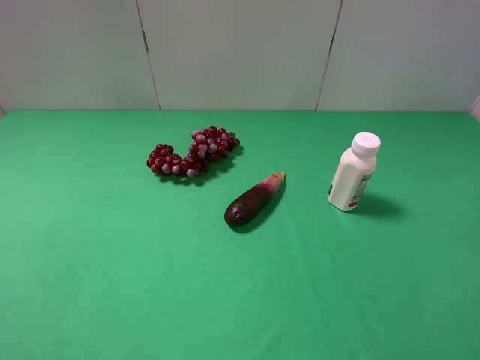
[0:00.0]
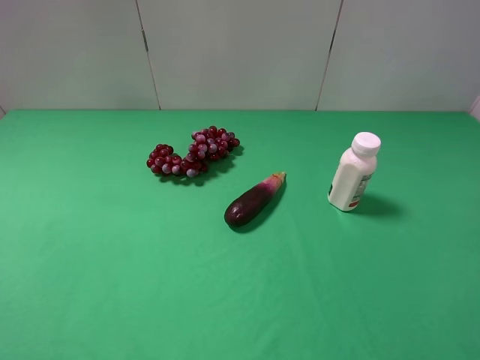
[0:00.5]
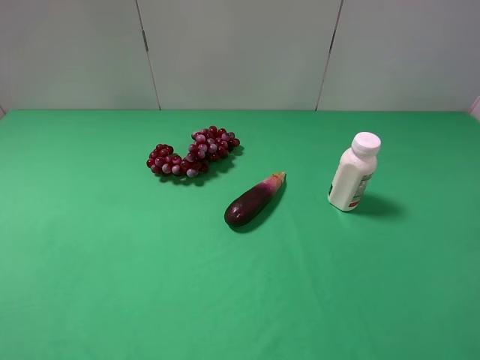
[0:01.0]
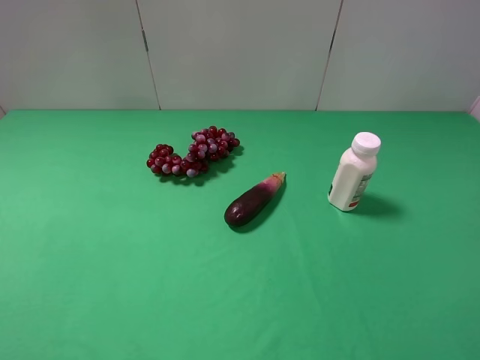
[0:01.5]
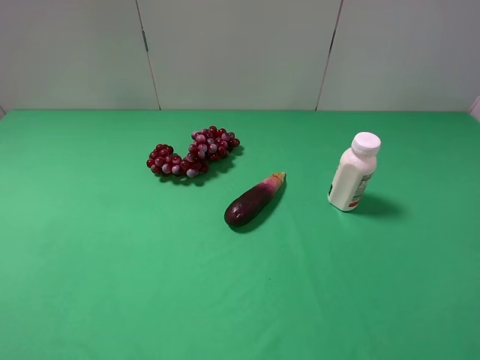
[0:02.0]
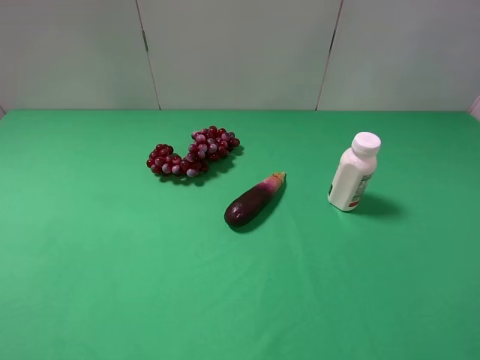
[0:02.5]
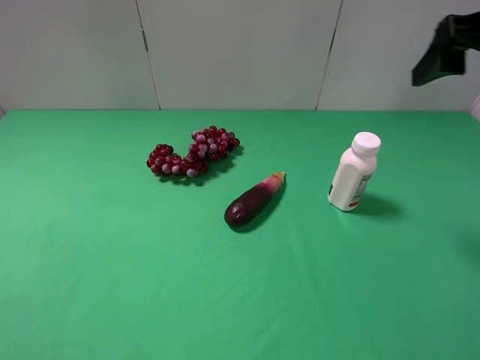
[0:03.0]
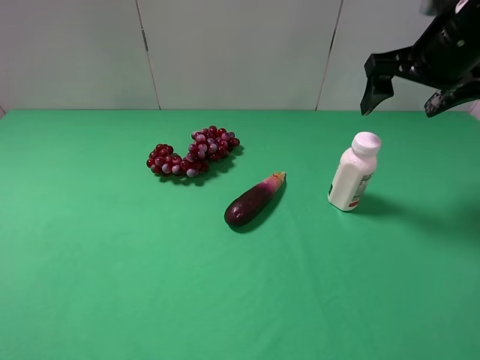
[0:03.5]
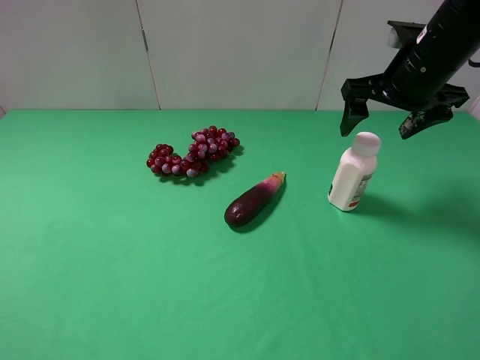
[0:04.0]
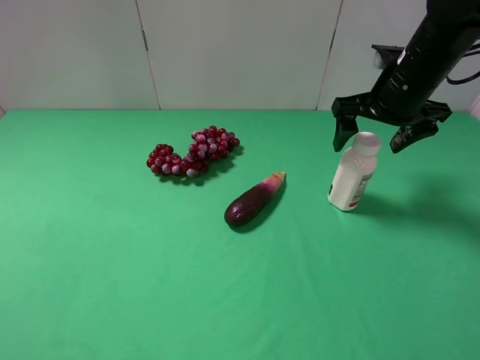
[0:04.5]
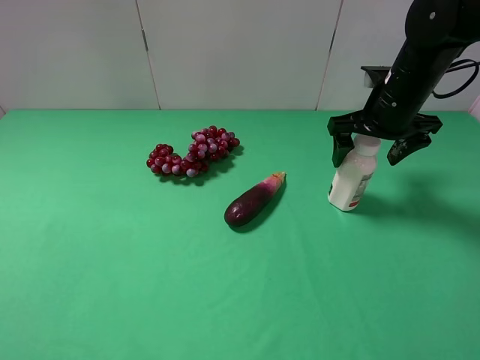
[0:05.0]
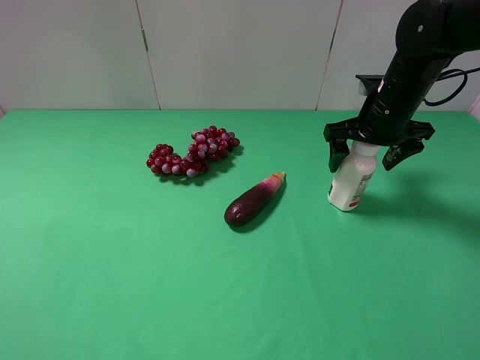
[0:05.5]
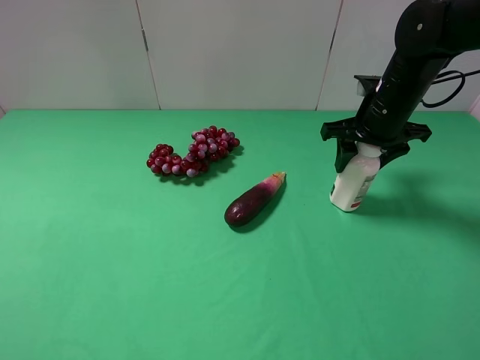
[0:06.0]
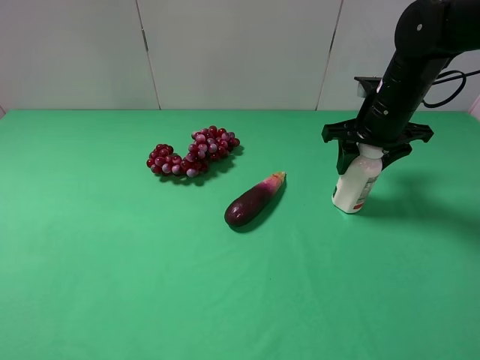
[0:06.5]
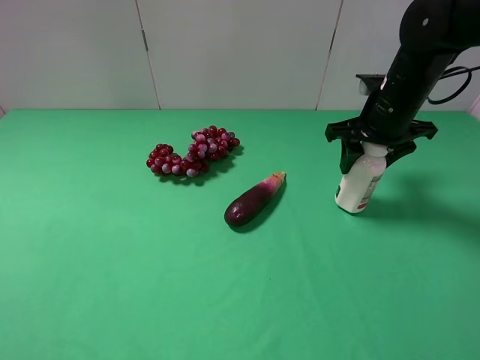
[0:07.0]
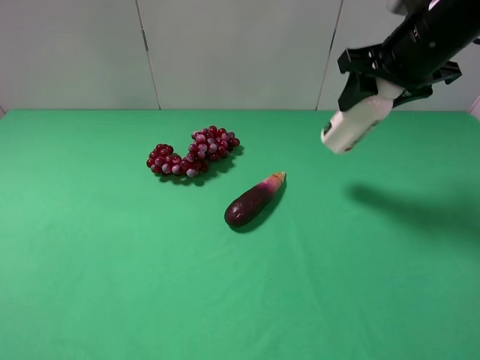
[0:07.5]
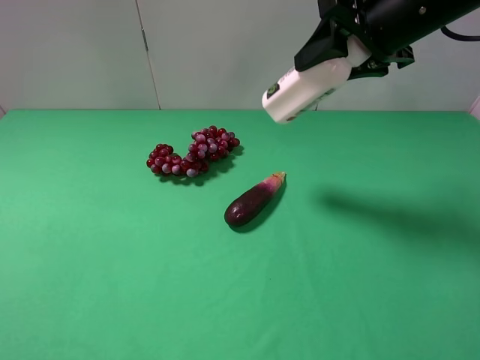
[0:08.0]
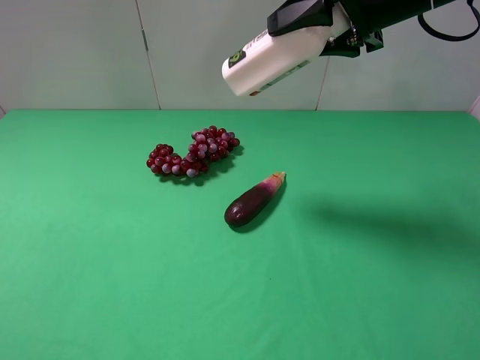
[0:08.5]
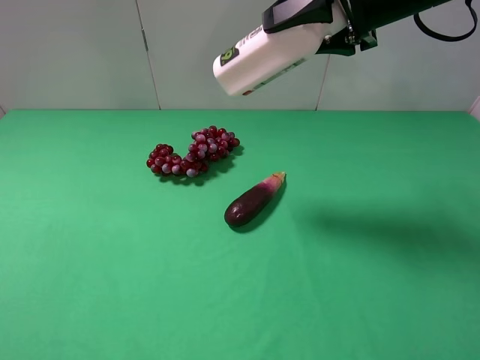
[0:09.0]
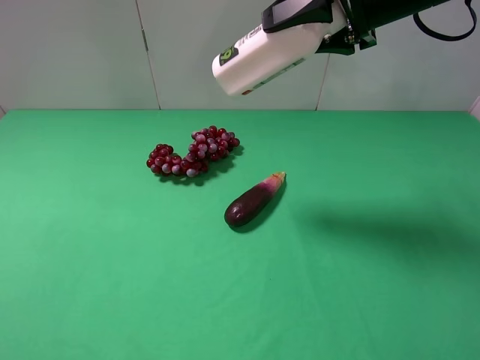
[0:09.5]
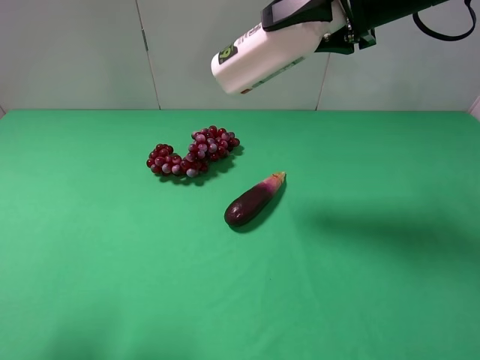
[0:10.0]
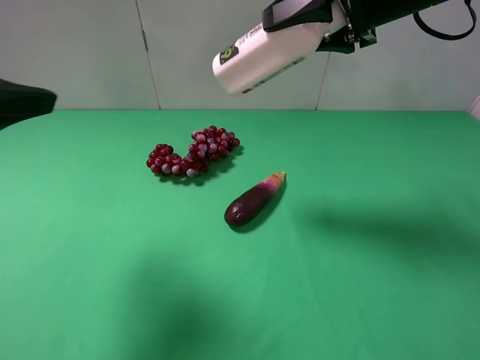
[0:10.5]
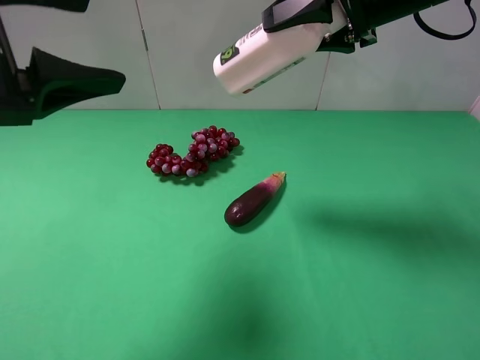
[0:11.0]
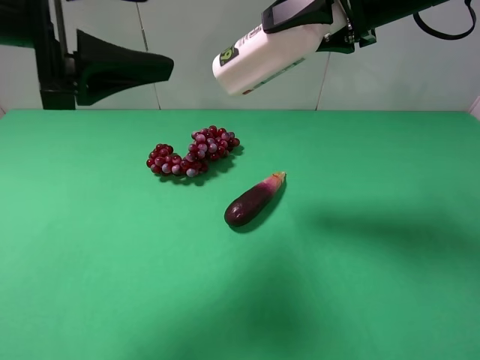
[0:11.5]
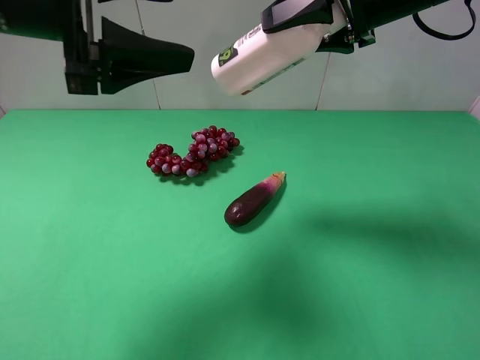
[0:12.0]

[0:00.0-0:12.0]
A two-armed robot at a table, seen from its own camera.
Task of the whole recording: use the right gripper to pick up the item and transfer it from the right gripper to the left gripper.
Step, 0:00.0 to 0:06.0: Use the right gripper to grab the milk on the right side of the table.
0:00.0 to 0:02.0: Both grippers stay about where they are.
0:02.0 to 0:04.0: The right gripper heads forward, covering roughly 30 cm.
0:04.0 to 0:06.0: The right gripper goes roughly 5 cm downward, and closes.
0:06.0 to 0:08.0: The right gripper shifts approximately 15 cm upward.
0:08.0 to 0:10.0: The left gripper travels forward by some 10 cm.
0:10.0 to 0:12.0: The left gripper heads forward and to the right, covering approximately 20 cm.

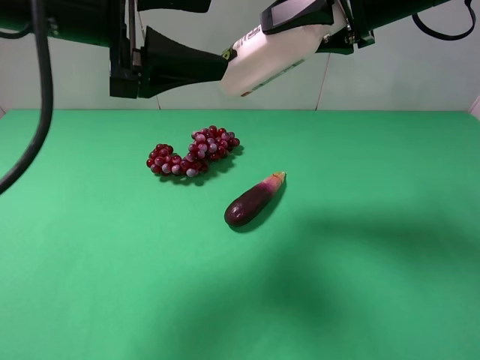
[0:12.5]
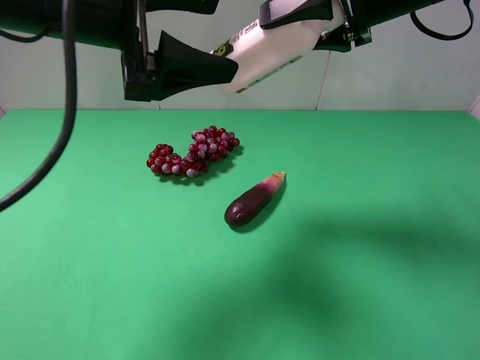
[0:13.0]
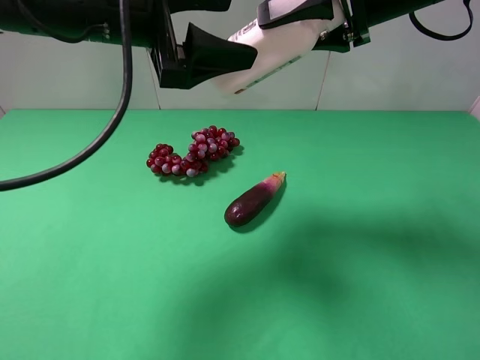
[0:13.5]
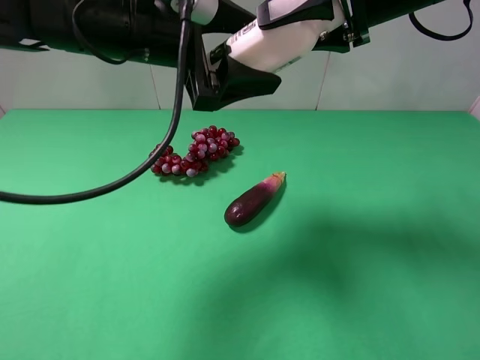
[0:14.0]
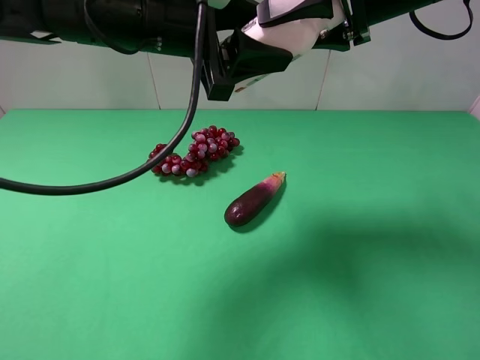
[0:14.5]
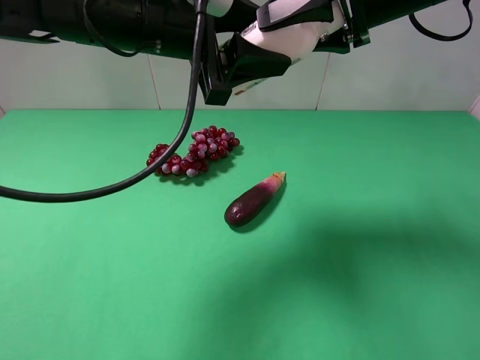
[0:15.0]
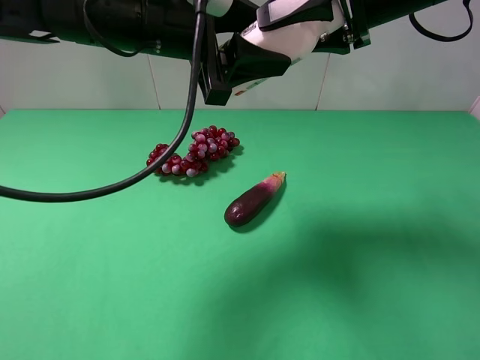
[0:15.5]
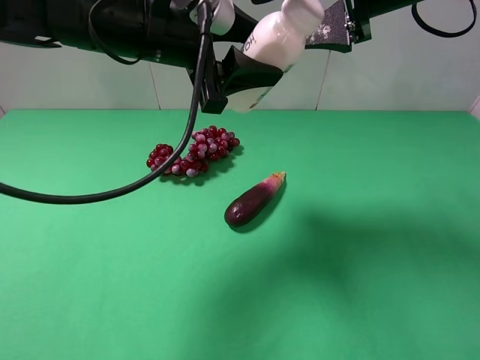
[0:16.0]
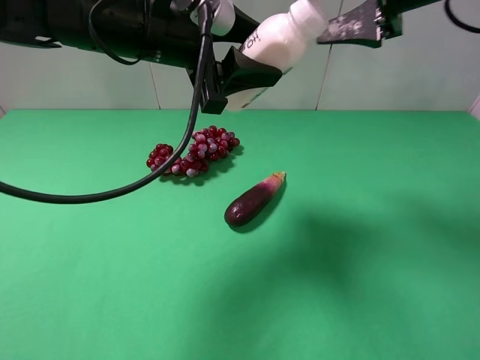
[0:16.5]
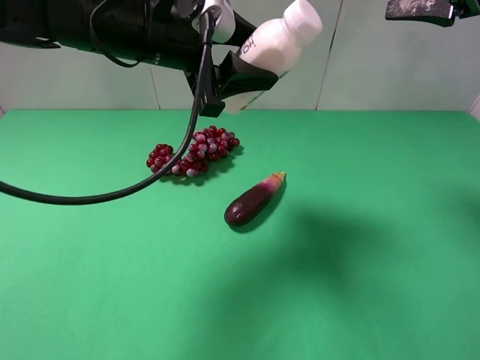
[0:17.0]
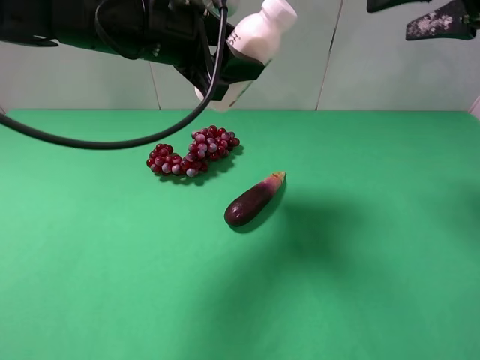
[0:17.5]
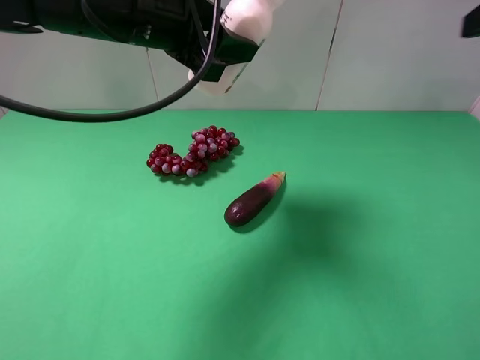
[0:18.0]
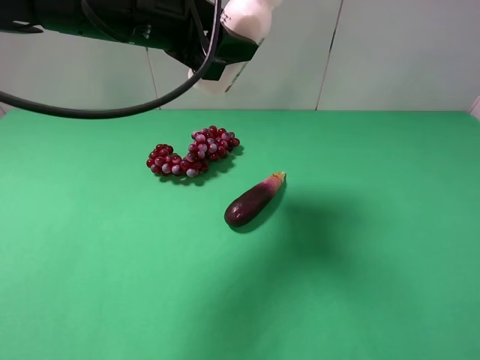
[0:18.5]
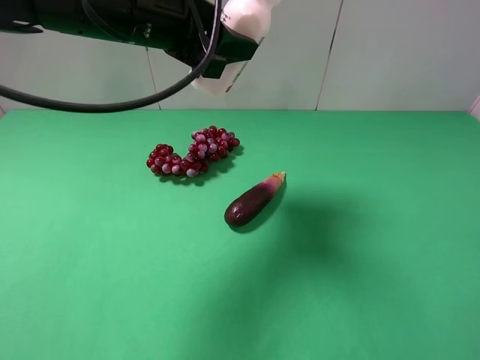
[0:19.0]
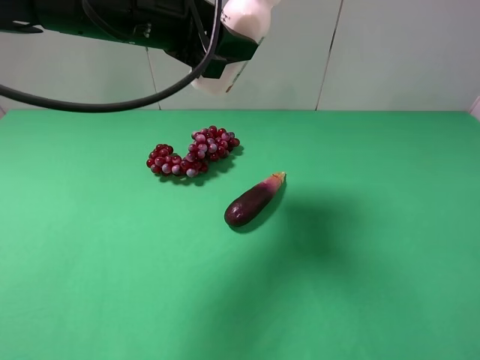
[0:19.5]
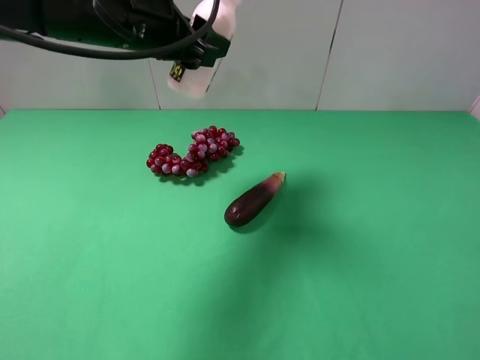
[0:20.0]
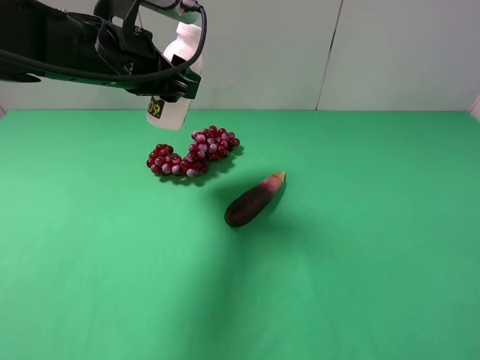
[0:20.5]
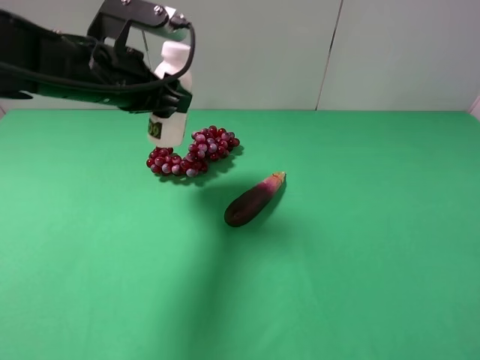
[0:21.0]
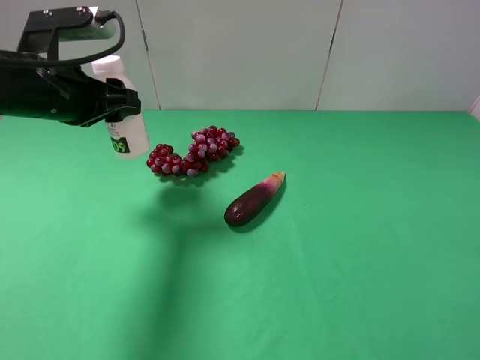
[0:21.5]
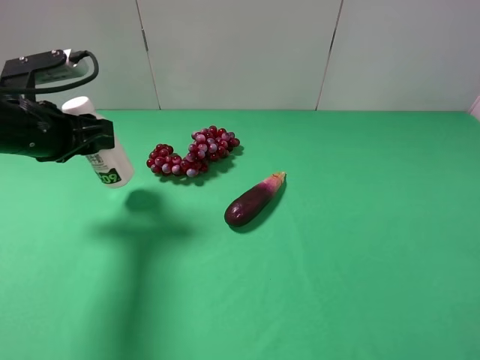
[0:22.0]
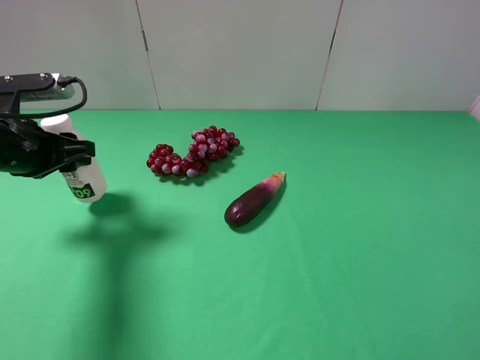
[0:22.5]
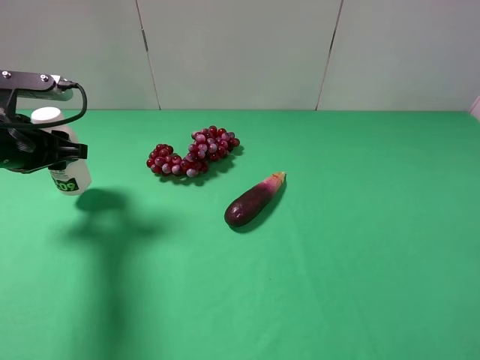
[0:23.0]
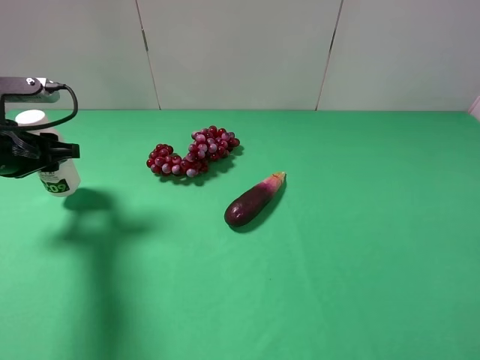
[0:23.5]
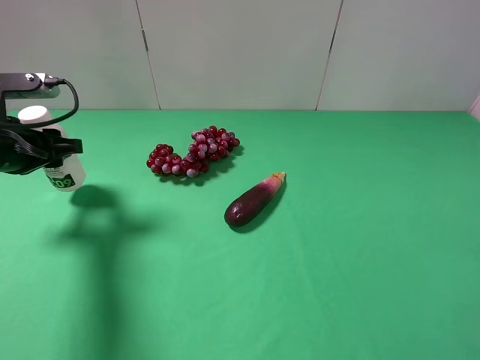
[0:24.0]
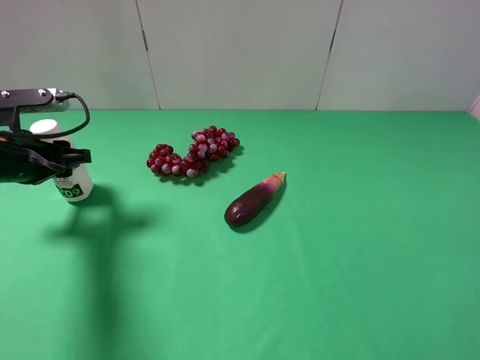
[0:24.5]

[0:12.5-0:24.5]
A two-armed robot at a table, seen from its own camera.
Task of the whole recording: use the right gripper to pick up the item and transfer it from the right gripper to the left gripper.
Step, 0:12.5 to 0:16.5: Pass the milk to the left gripper.
0:12.5 to 0:14.5: The left gripper heads to the right, covering roughly 5 cm, and closes up.
0:14.5 to 0:16.5: The right gripper opens.
0:16.5 to 0:18.5: The right gripper is displaced backward by some 25 cm.
0:18.5 to 0:20.5: The left gripper ends up some 5 cm from where it was. Meanwhile the right gripper shifts roughly 10 cm downward and backward.
0:20.5 to 0:22.5: The left gripper goes about 15 cm to the left and downward.
0:22.5 to 0:24.5: There are only small adjustments of the grippers.

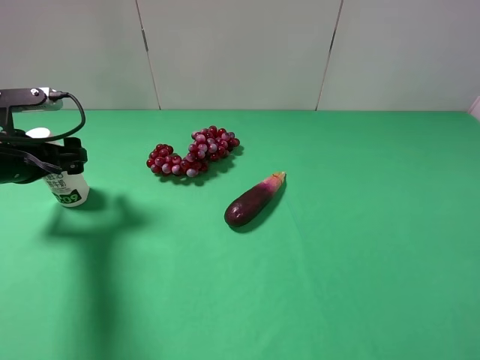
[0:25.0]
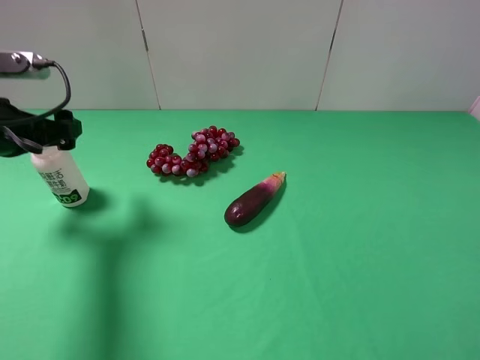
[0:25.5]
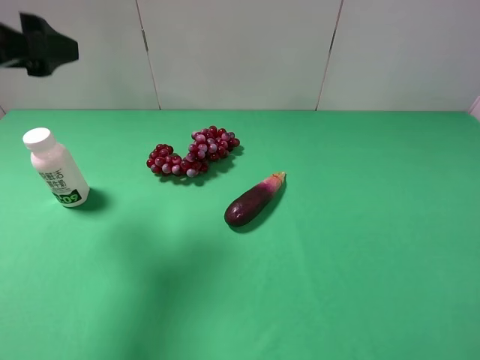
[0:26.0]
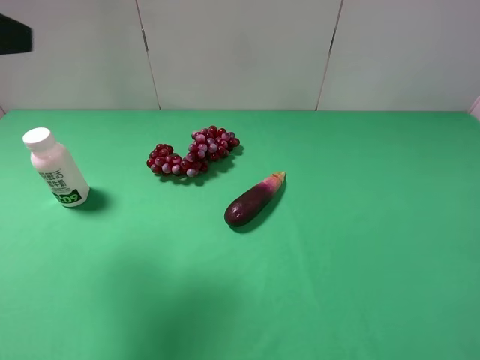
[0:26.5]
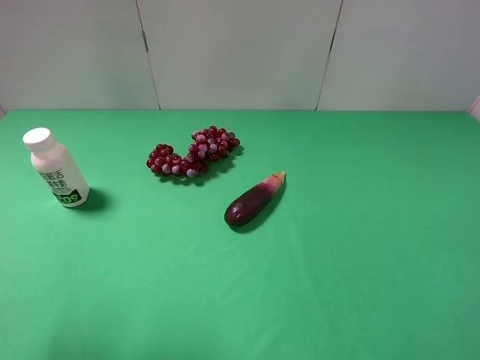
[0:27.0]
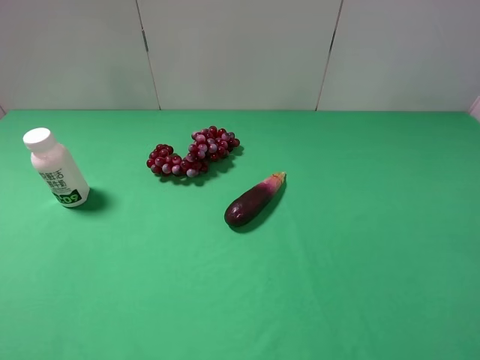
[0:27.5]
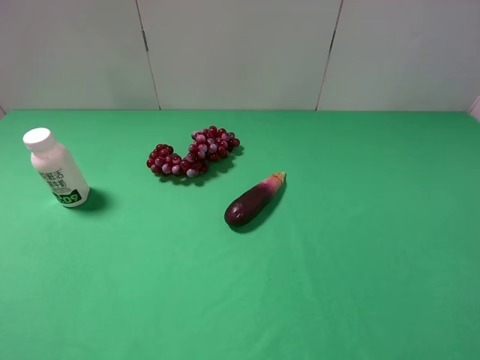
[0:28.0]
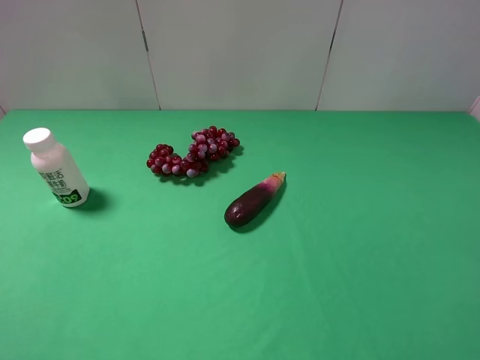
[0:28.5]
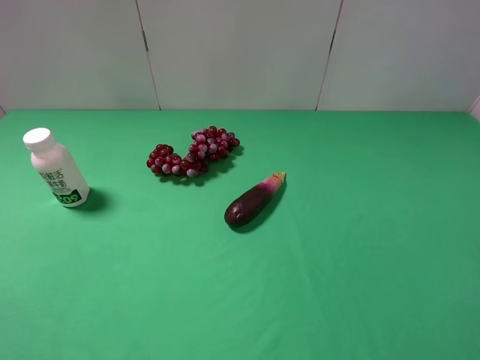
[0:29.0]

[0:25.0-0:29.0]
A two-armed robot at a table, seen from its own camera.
Task of the whole recording: use the right gripper to pick up the item and transfer it from the right gripper to the left gripper.
0:25.0 to 0:27.0: The left gripper heads upward and backward, covering about 30 cm.
